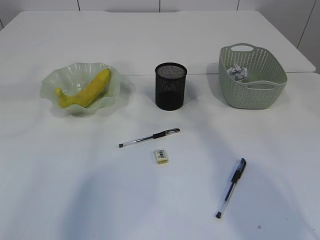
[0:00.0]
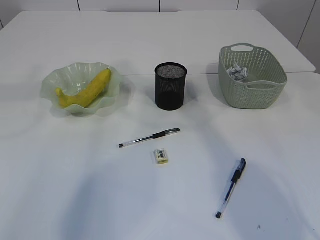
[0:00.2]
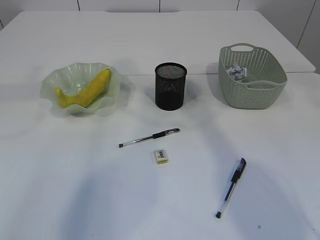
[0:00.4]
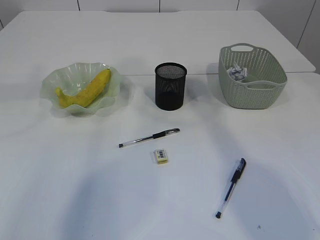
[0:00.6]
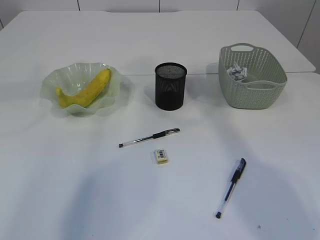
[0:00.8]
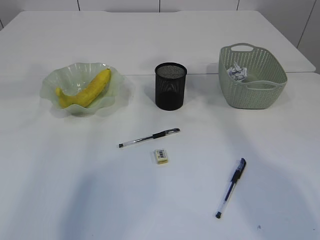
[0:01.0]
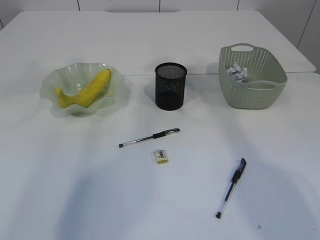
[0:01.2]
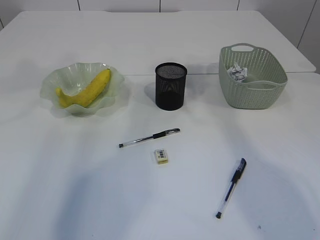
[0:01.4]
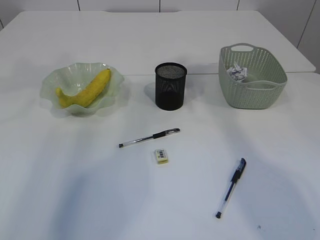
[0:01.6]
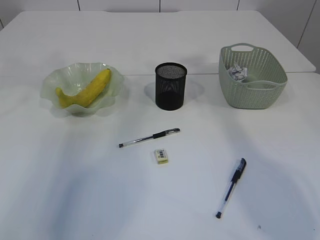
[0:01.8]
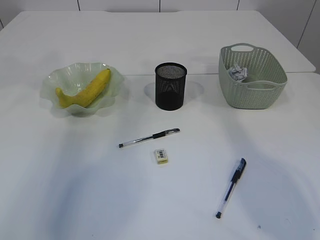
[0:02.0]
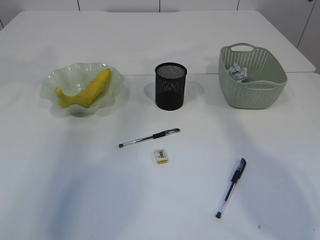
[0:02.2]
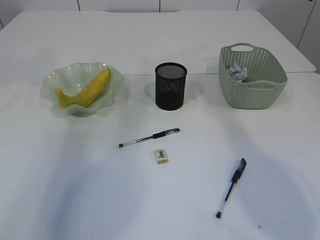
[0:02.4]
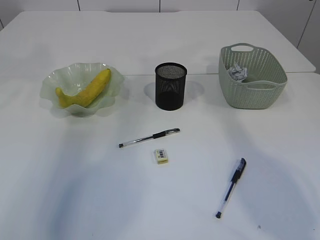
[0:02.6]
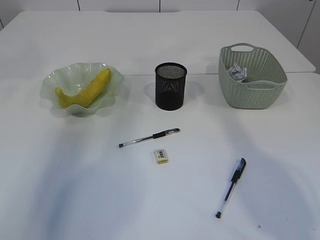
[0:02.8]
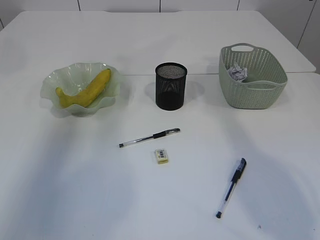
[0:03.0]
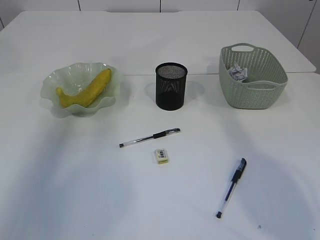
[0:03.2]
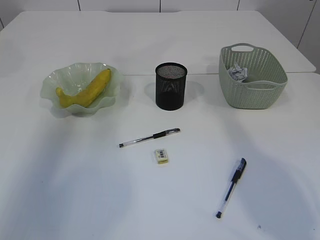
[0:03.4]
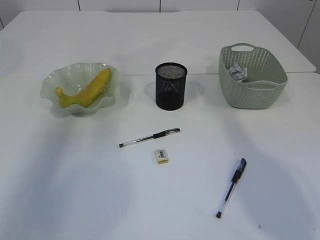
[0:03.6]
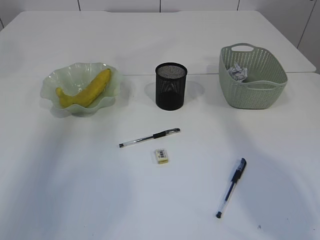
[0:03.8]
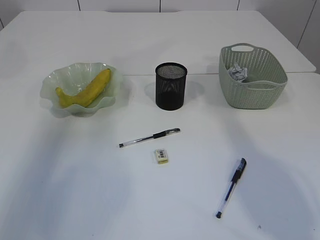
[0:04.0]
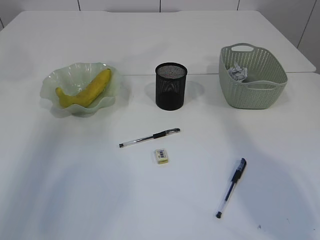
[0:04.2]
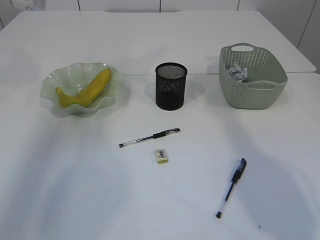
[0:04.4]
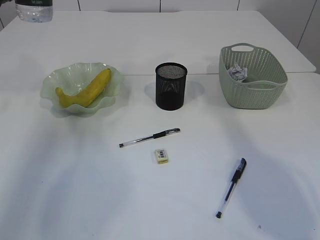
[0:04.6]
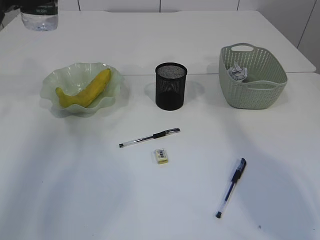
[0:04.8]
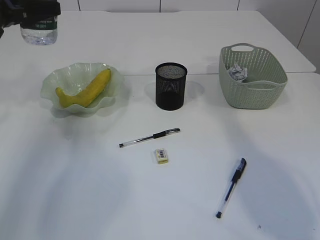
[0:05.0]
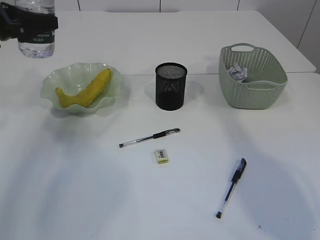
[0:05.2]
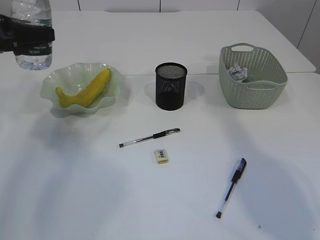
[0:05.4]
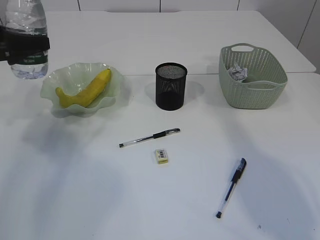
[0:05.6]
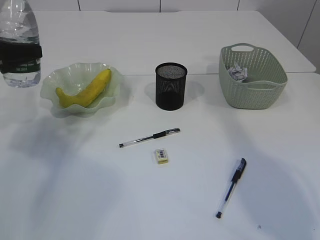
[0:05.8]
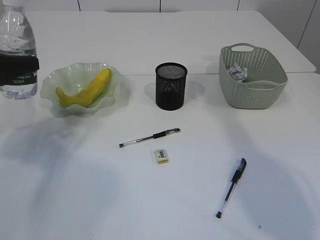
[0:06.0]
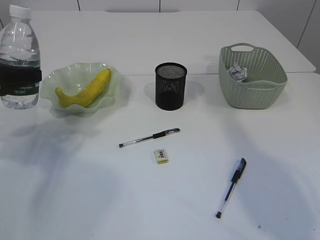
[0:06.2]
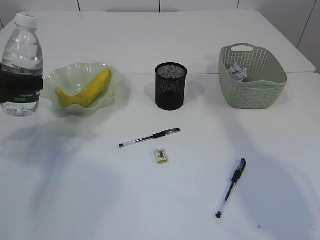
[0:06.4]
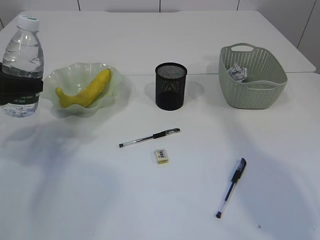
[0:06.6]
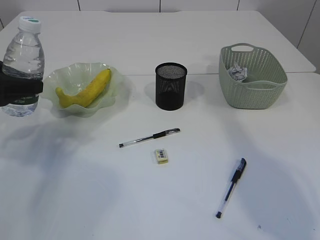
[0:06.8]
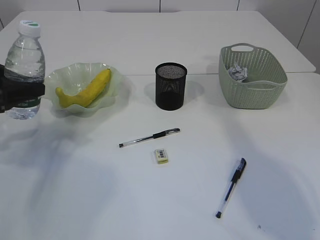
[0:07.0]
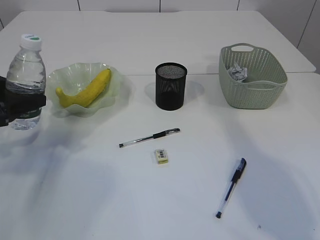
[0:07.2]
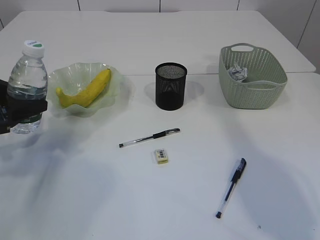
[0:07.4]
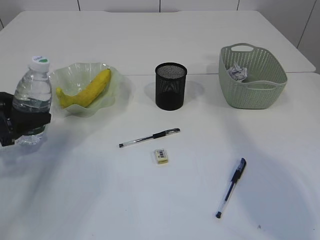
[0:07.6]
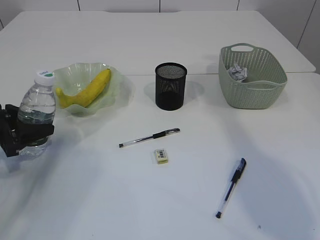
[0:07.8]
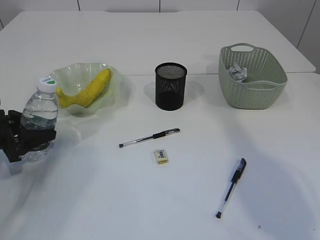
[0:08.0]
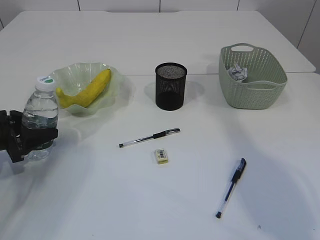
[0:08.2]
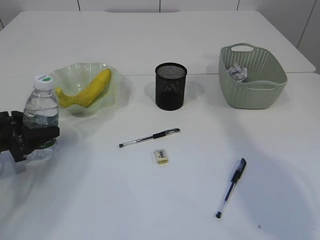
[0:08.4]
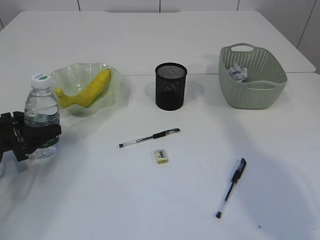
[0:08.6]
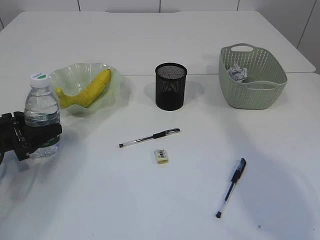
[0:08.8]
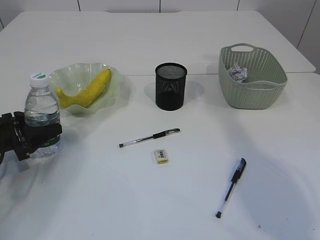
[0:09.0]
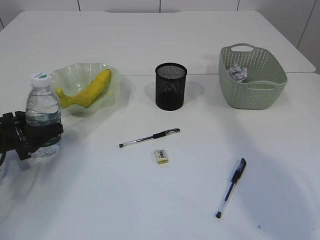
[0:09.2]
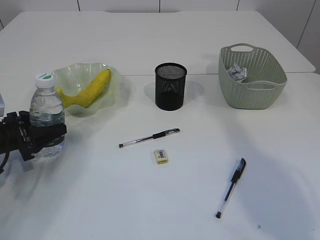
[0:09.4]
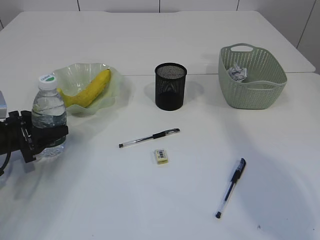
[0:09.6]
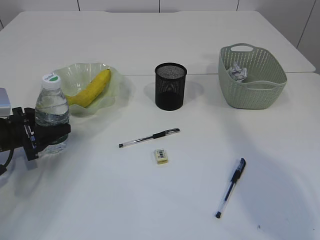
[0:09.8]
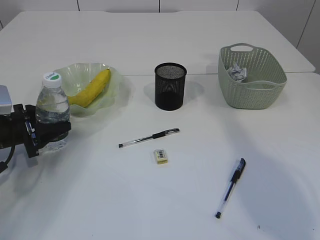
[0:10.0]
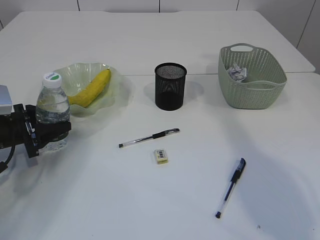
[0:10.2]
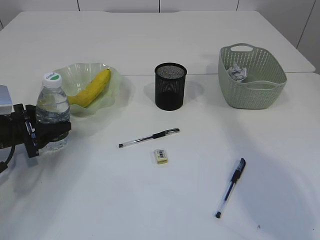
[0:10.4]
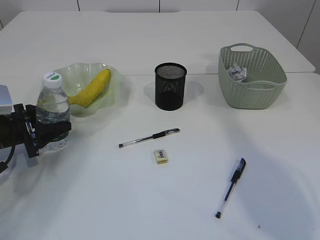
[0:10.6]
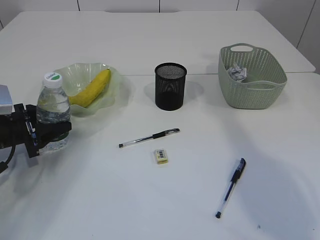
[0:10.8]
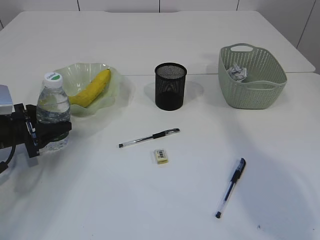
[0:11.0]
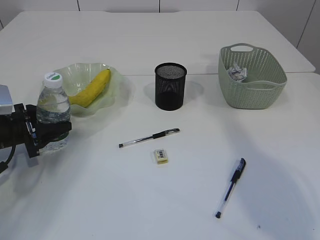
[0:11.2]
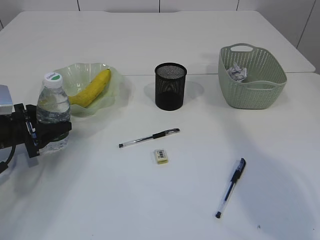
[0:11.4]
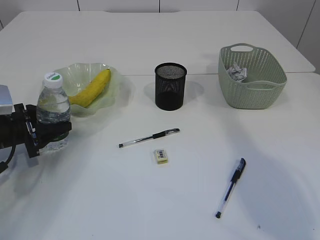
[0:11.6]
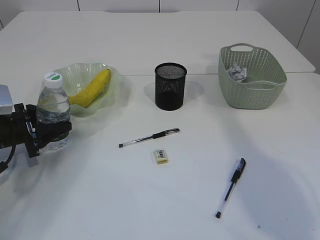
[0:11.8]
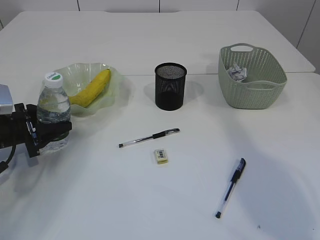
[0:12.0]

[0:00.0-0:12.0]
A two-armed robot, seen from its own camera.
0:00.0 to 0:01.6: The right gripper travels to the right by about 15 cm, while the left gripper moves to the left, approximately 5 cm.
0:01.6 to 0:03.0: The right gripper travels to the right by approximately 5 cm. The left gripper shifts roughly 10 cm to the left.
0:04.4 to 0:06.0: The left gripper goes roughly 15 cm downward and backward.
0:06.0 to 0:07.6: The left gripper moves downward, some 10 cm.
0:07.6 to 0:09.0: The left gripper goes approximately 5 cm downward.
0:09.0 to 0:10.4: The grippers make only small movements.
0:10.4 to 0:12.0: The two grippers keep their place.

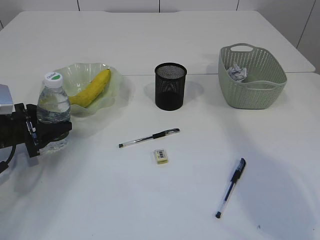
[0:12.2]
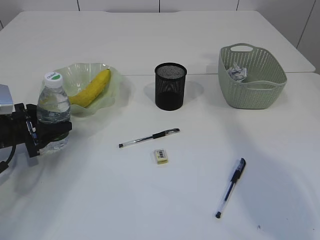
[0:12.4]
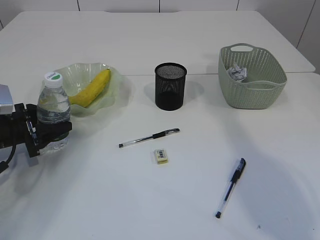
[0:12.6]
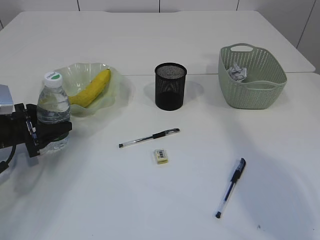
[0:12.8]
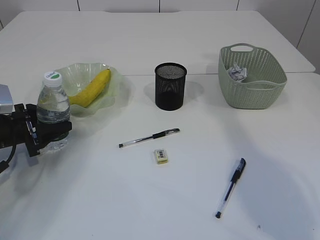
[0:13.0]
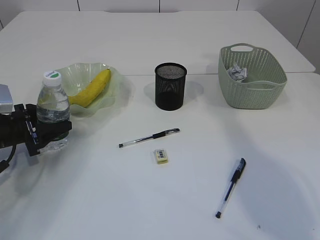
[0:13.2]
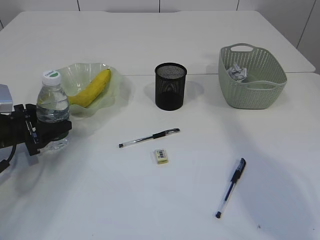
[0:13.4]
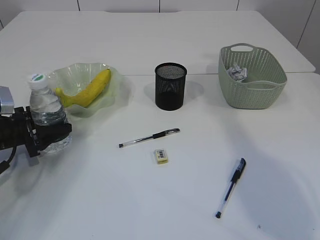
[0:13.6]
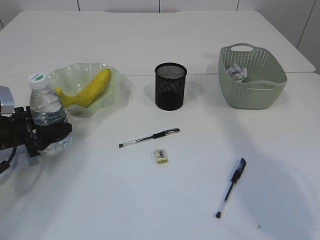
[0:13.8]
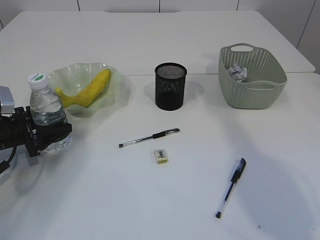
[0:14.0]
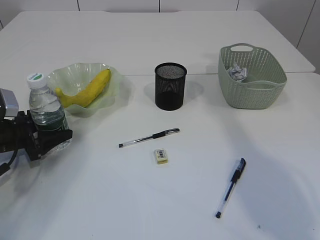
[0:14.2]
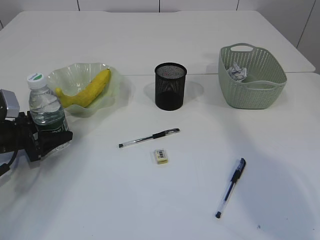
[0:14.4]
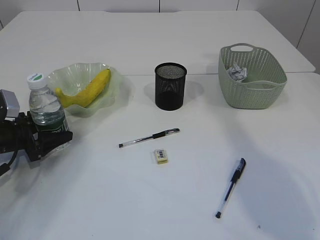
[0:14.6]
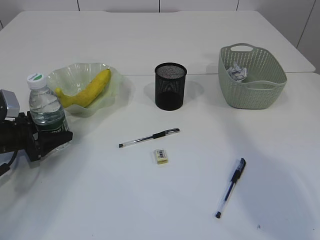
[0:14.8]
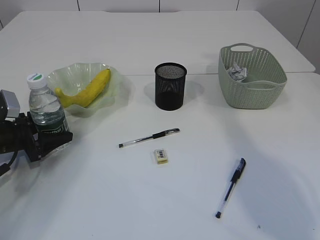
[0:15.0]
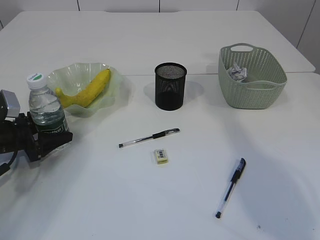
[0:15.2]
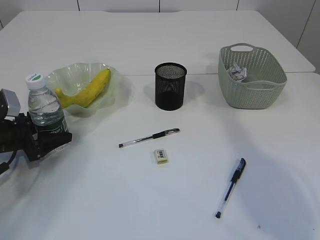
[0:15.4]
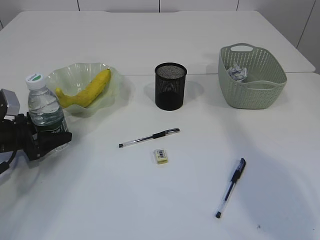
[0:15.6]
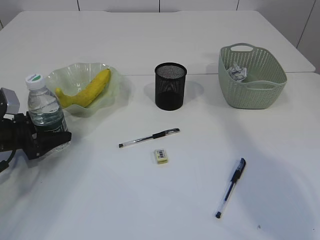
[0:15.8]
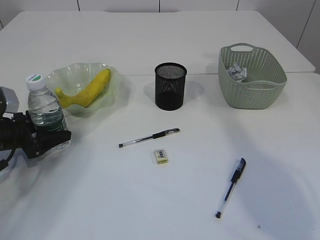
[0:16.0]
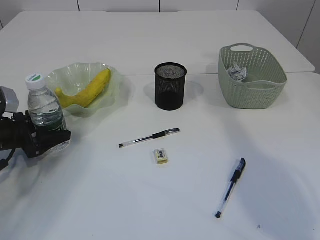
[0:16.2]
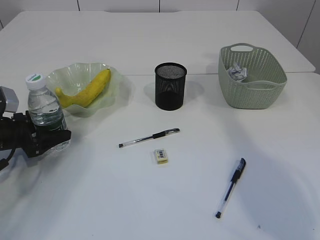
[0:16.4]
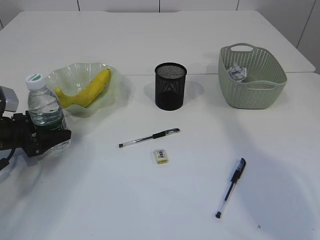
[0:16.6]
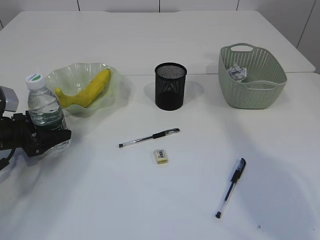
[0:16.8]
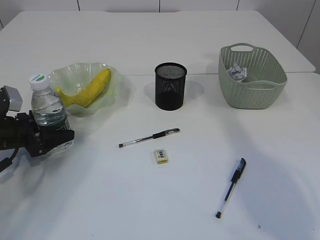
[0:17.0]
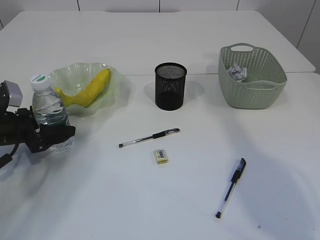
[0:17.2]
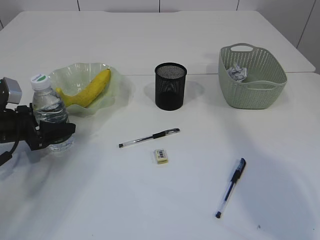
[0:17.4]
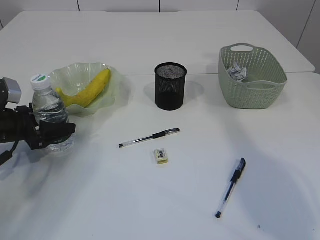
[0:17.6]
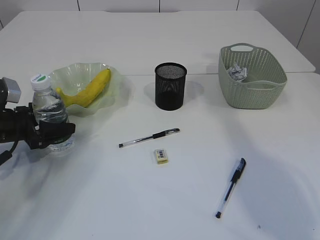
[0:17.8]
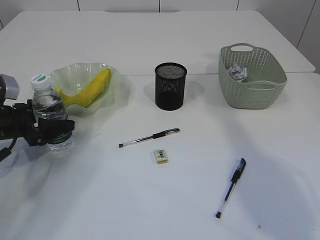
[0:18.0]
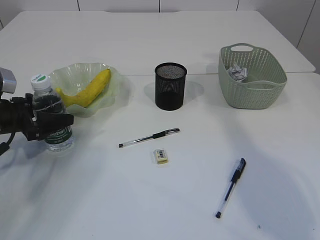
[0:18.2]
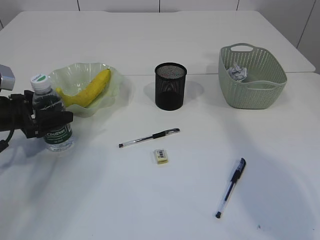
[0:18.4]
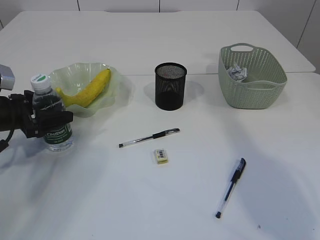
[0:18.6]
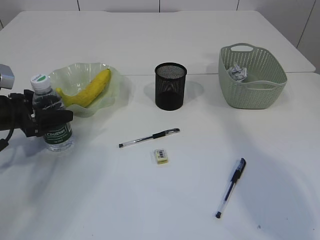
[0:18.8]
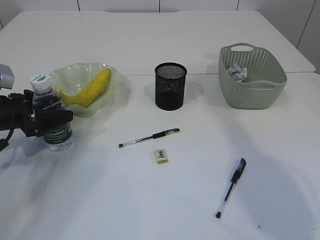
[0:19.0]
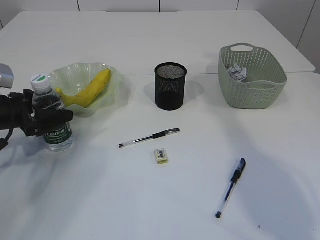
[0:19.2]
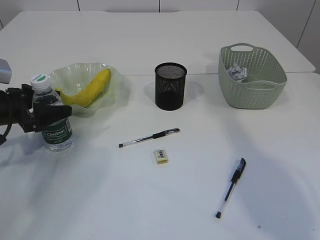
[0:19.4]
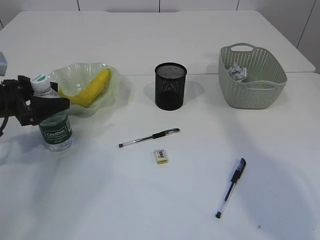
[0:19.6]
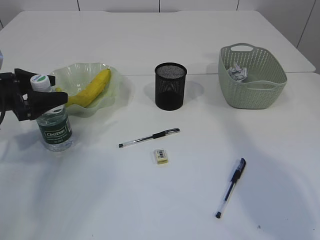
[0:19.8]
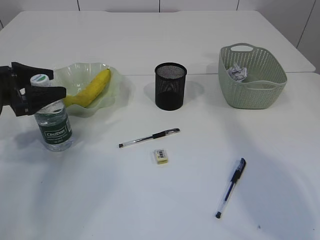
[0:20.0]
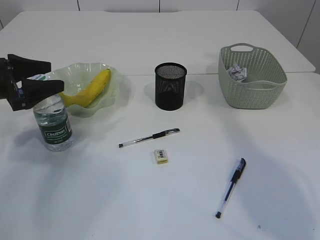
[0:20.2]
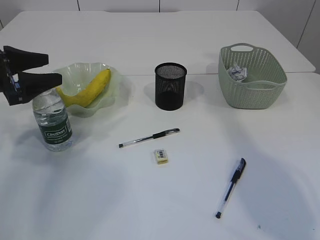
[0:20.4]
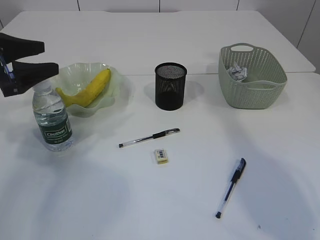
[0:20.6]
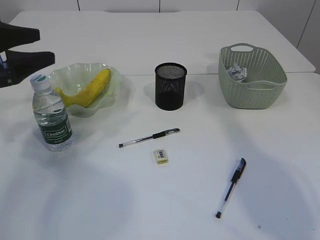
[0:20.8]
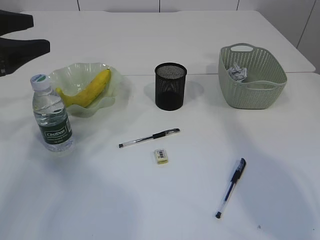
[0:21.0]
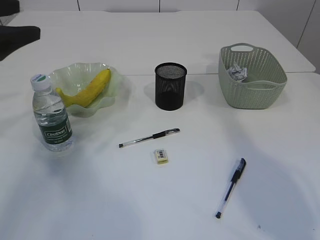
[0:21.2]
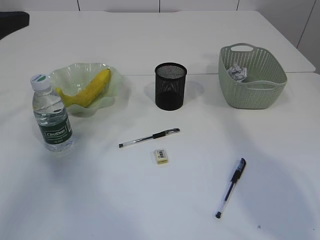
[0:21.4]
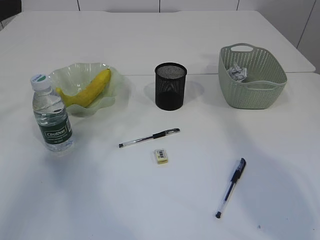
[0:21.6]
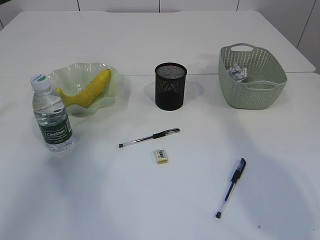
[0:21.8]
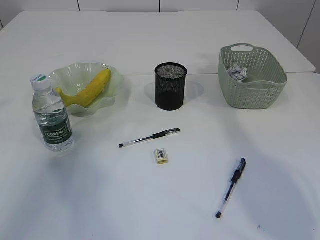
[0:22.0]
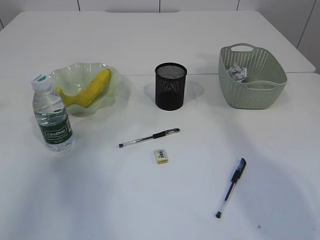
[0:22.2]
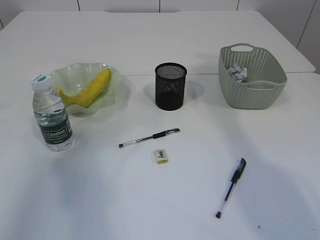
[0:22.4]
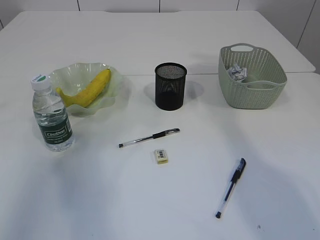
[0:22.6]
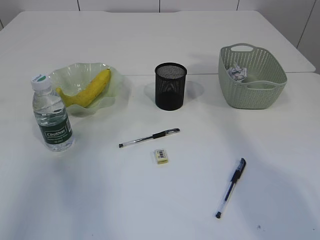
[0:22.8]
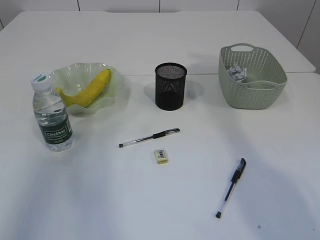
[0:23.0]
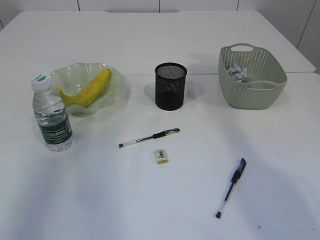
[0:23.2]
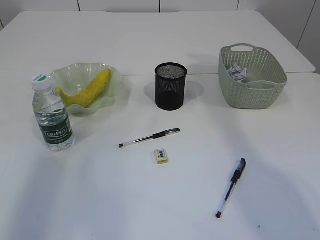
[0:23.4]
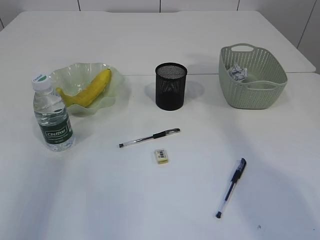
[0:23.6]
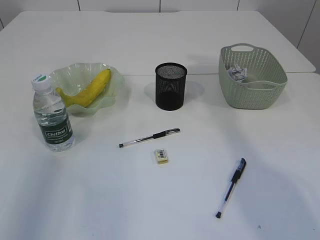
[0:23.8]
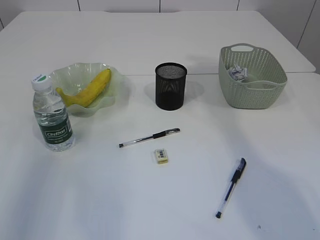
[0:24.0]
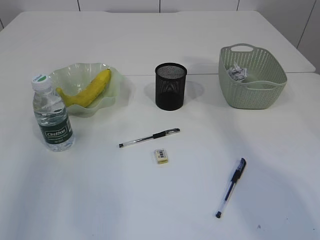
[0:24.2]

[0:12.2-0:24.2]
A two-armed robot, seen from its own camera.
Step, 0:12.2 to 0:20.2: Place the bottle.
0:12.2 to 0:13.8: The two grippers keep their place.
0:13.8 to 0:18.2: There are only small adjustments of the grippers.
0:18.2 to 0:19.8: The left gripper shifts roughly 5 cm upward.
0:19.8 to 0:21.2: The left gripper is displaced upward by approximately 15 cm.
0:21.2 to 0:22.6: The left gripper heads upward and backward, covering about 10 cm, and closes its fingers.
